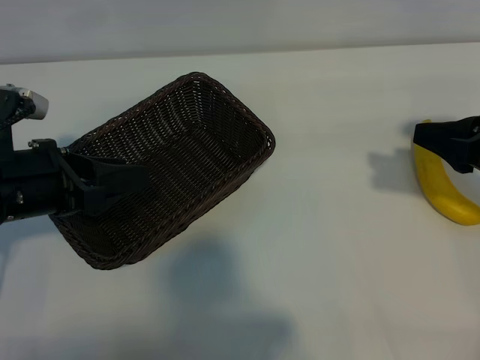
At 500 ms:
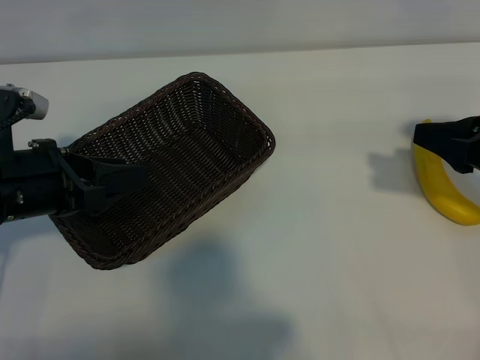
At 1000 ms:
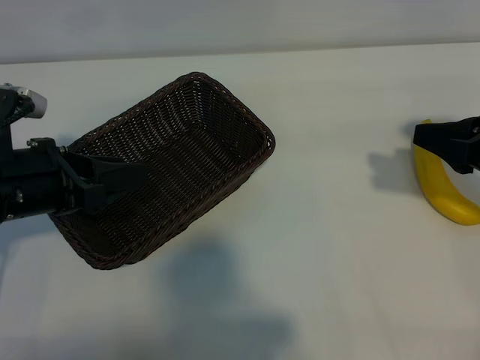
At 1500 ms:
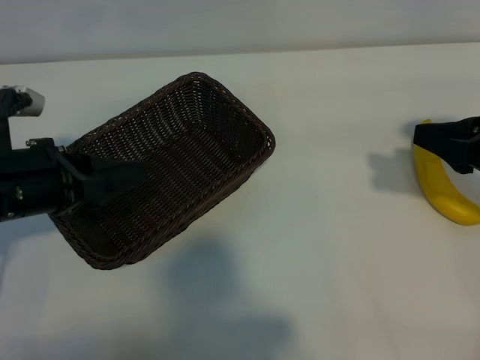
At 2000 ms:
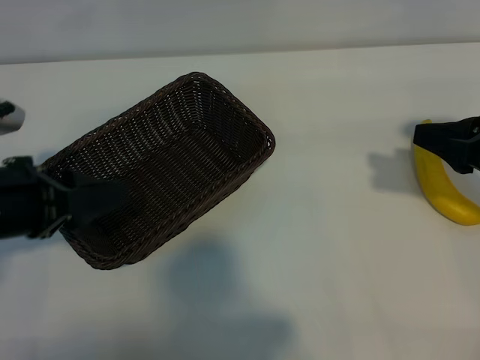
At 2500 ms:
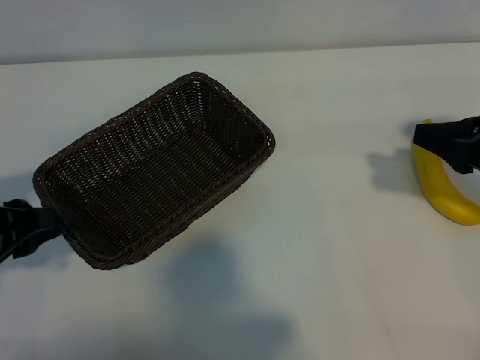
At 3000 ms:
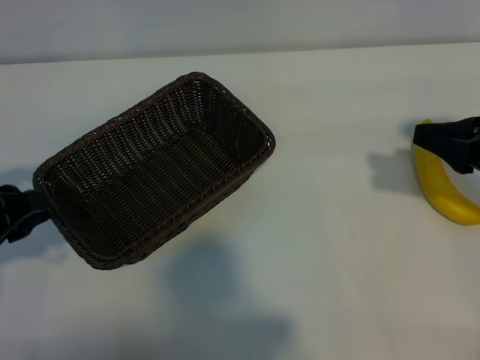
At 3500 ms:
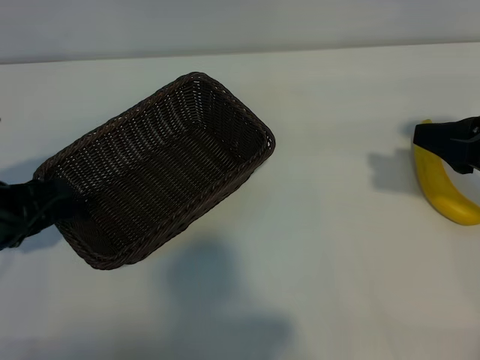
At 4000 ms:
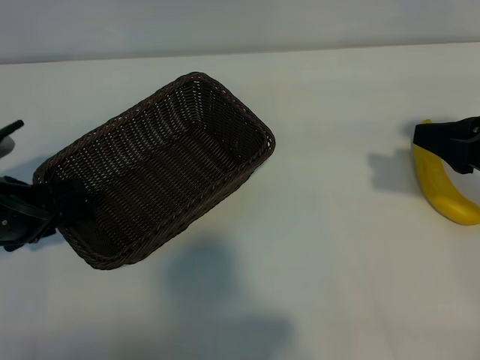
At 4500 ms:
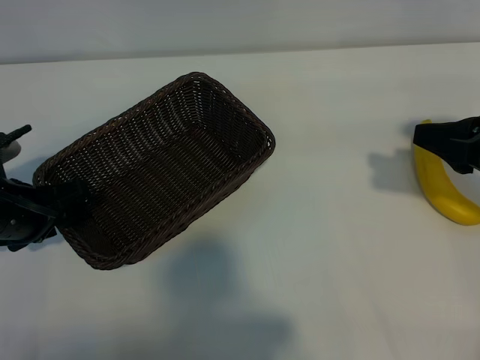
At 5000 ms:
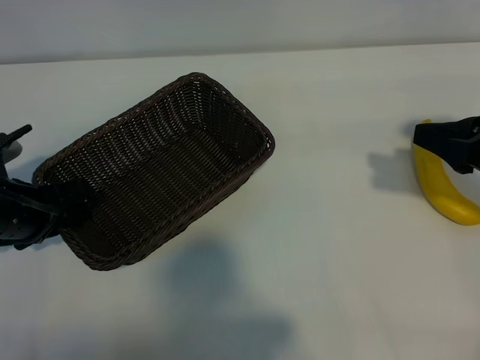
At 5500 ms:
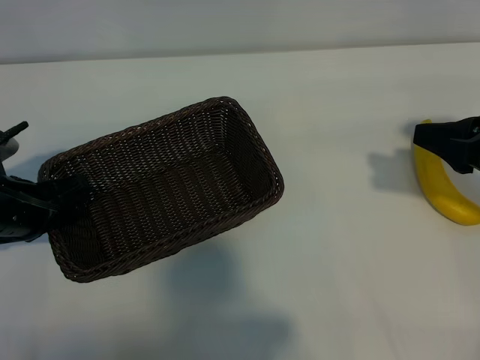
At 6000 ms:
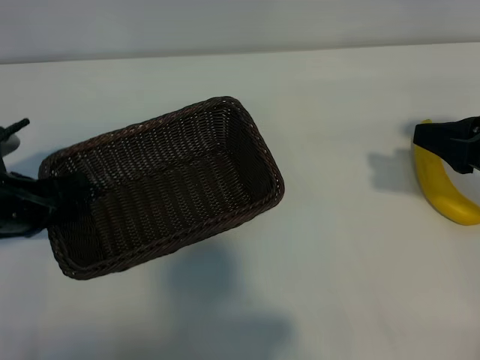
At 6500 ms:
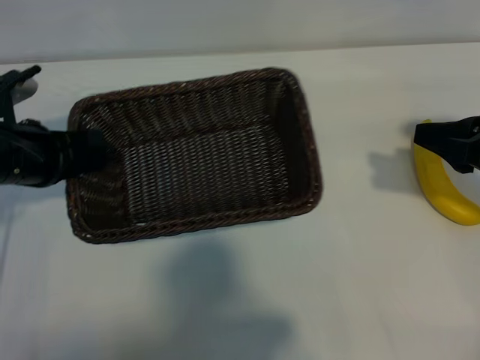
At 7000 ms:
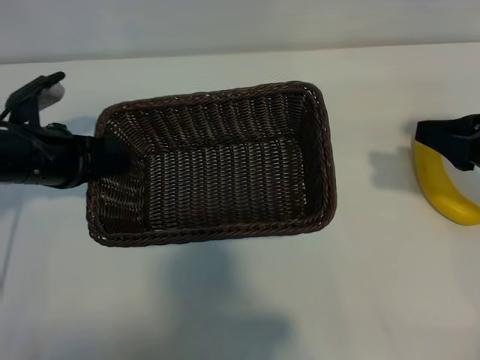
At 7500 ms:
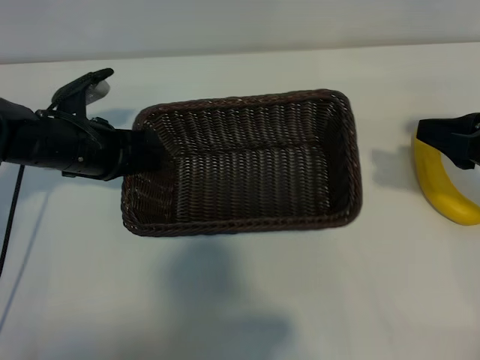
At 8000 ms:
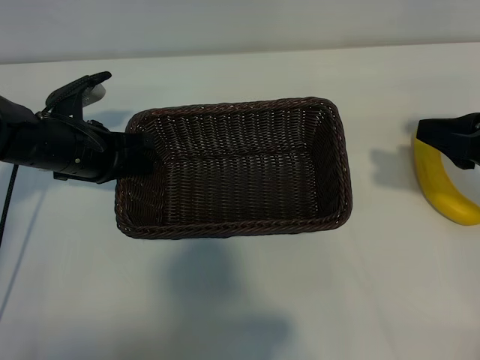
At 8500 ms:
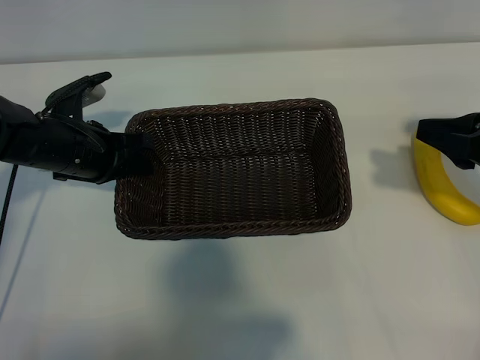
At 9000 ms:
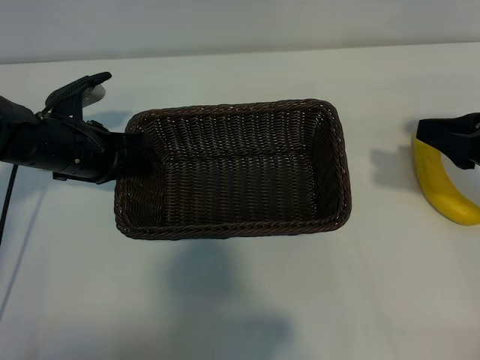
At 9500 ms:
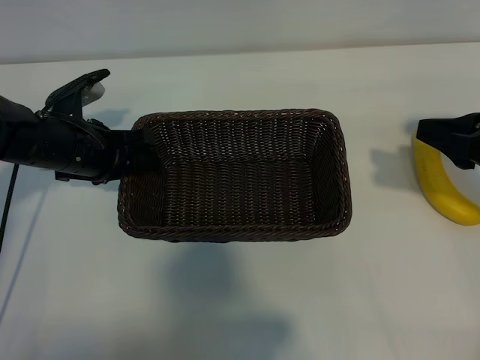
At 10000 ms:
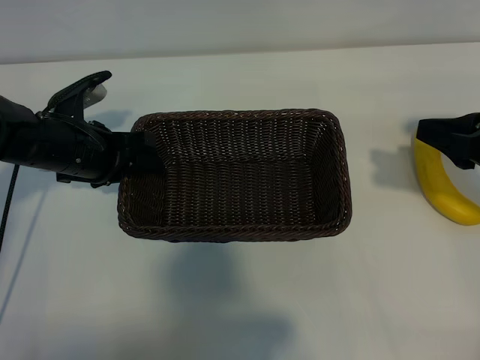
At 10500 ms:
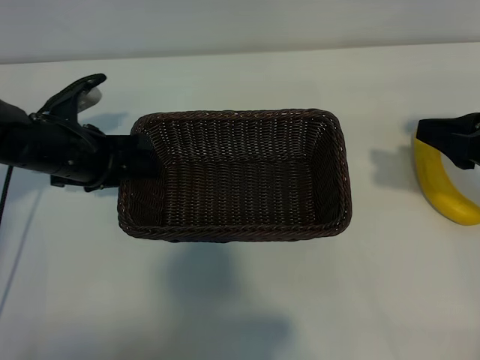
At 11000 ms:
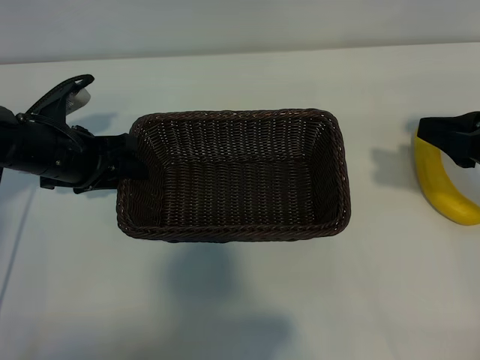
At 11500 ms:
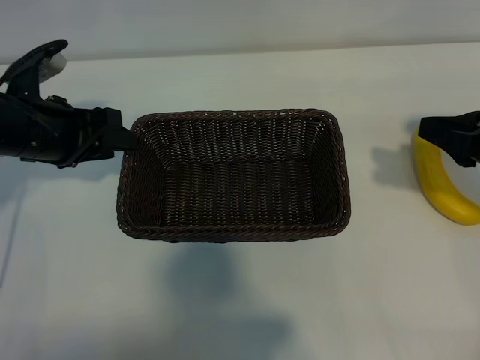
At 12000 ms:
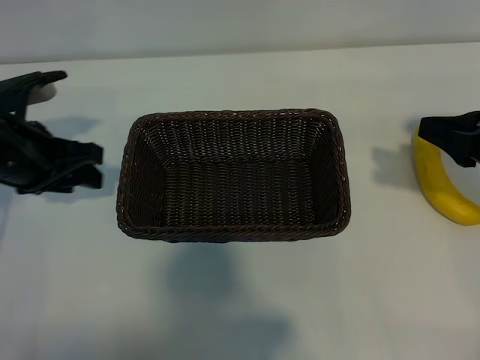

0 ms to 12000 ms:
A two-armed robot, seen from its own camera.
Task of the whole recording: pick up the banana and put it into the basket.
Step, 1000 ms to 6000 ms: Grasp the basket with the left gripper.
Step, 6500 ms to 11500 ms: Place the basket in the center of the table with the left gripper.

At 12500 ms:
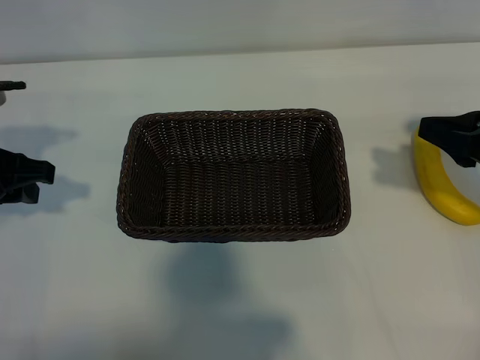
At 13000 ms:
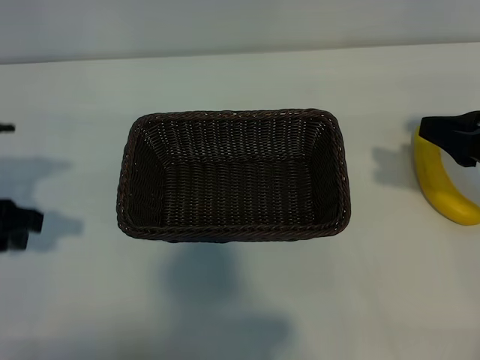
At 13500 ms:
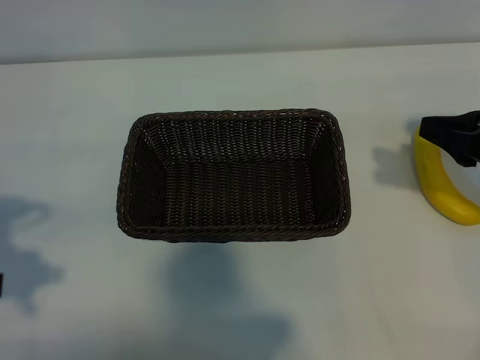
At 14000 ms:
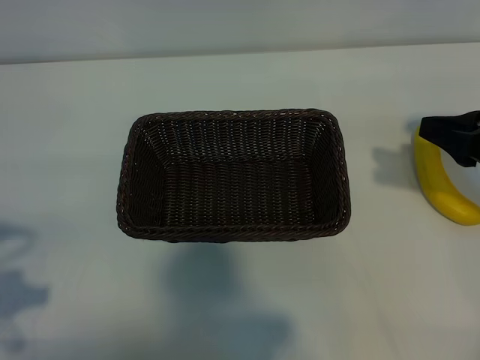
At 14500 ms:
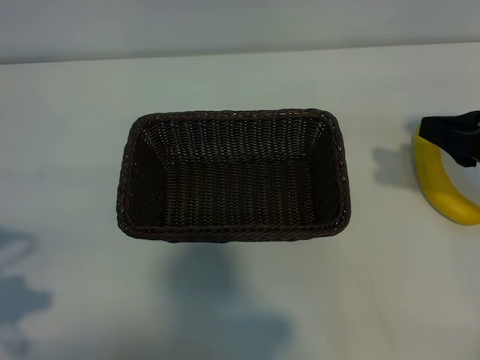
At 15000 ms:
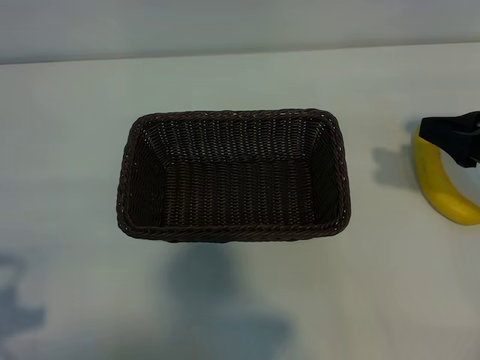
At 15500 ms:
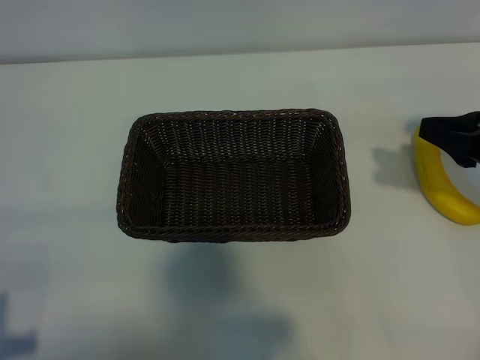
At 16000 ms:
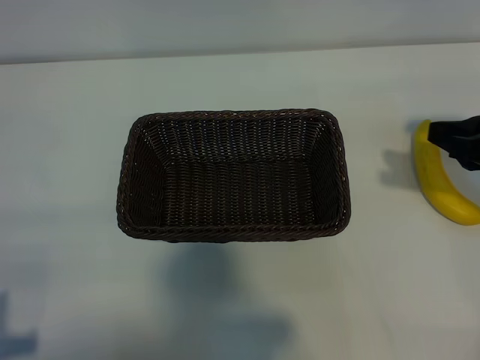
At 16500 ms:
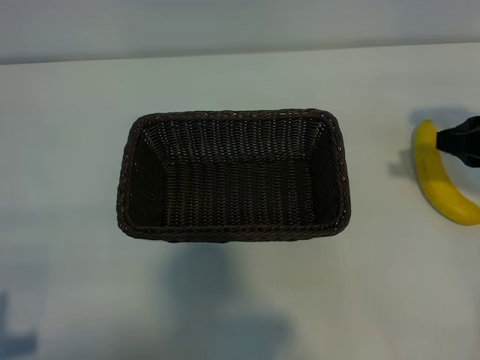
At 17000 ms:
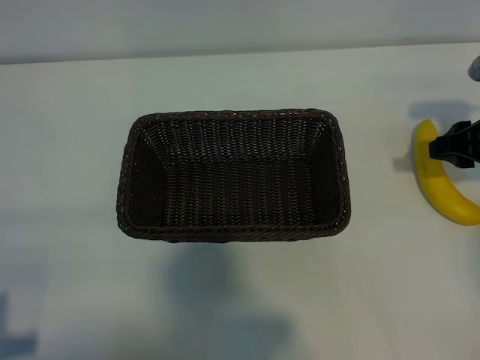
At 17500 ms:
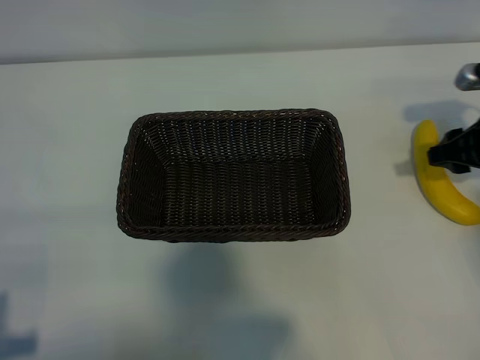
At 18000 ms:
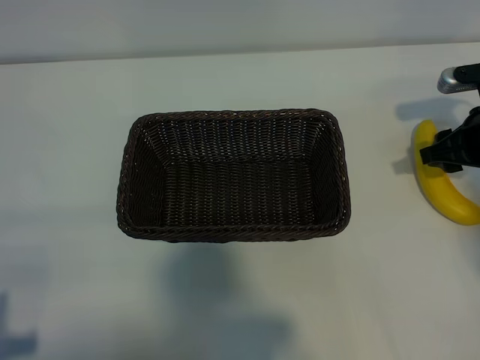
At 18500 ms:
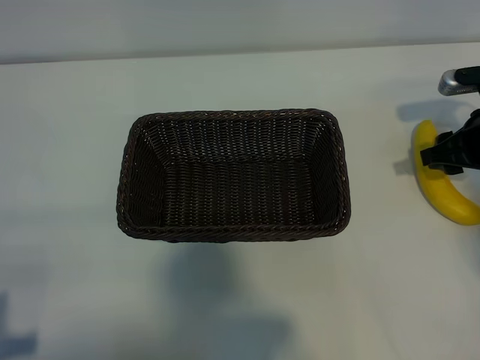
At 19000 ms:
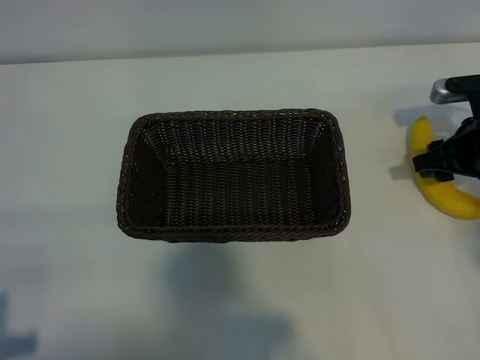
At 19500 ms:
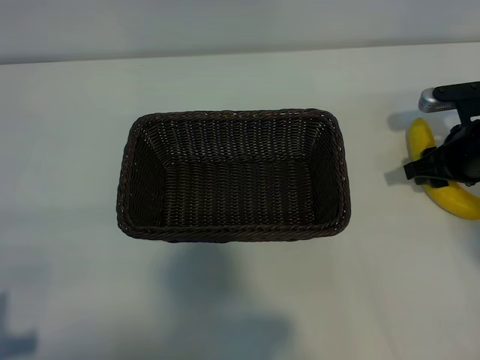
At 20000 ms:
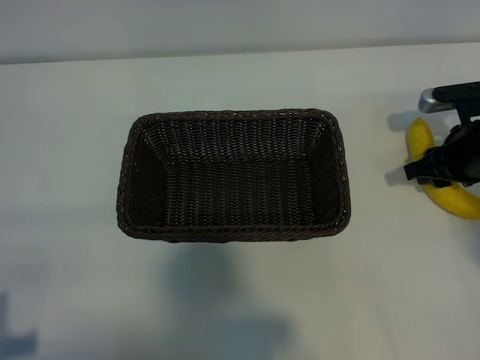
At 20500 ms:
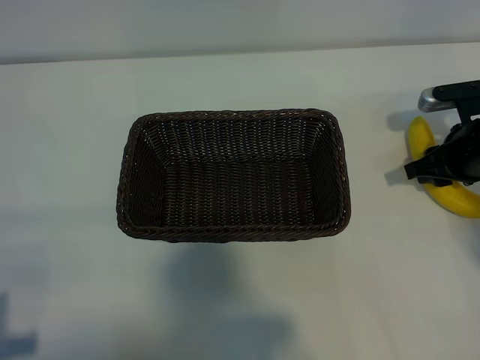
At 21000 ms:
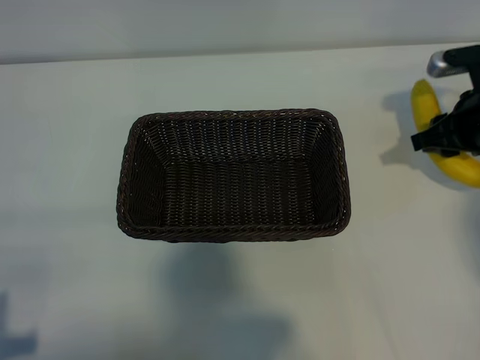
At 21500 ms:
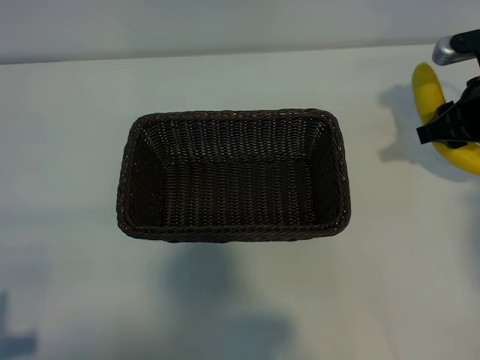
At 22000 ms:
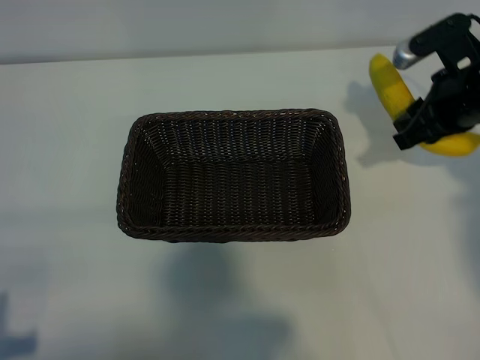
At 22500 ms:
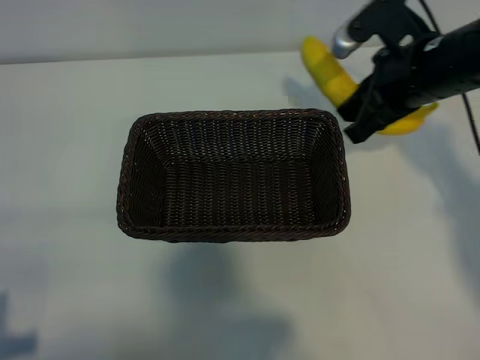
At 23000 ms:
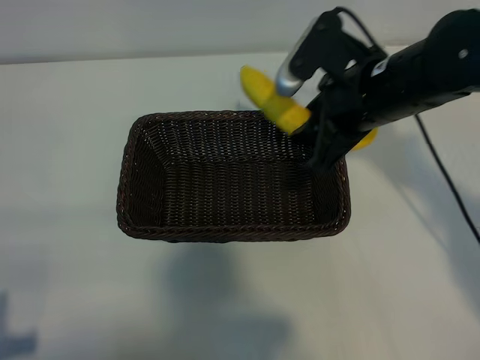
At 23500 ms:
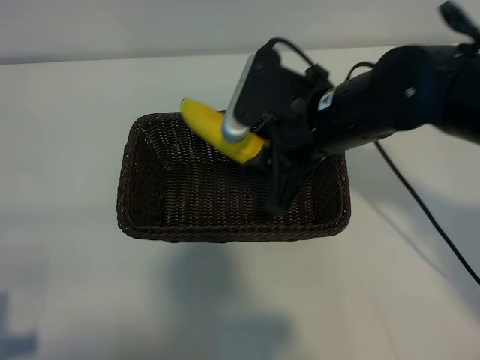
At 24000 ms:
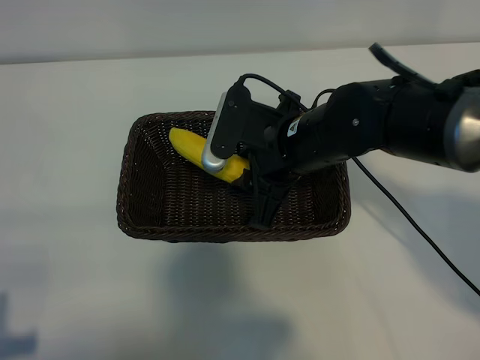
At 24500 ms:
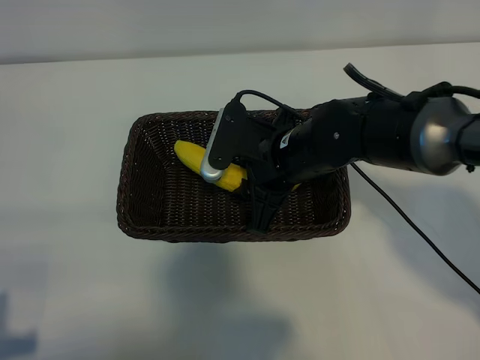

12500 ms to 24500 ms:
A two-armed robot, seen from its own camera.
Task of the whole recording: pick up the banana and put it into the basket.
Step, 12500 ms to 19500 ms: Grasp the banana with right gripper.
